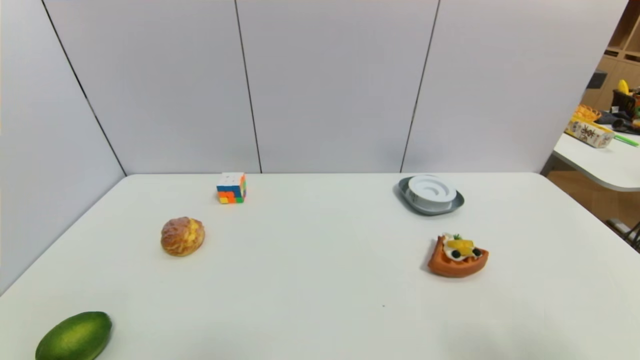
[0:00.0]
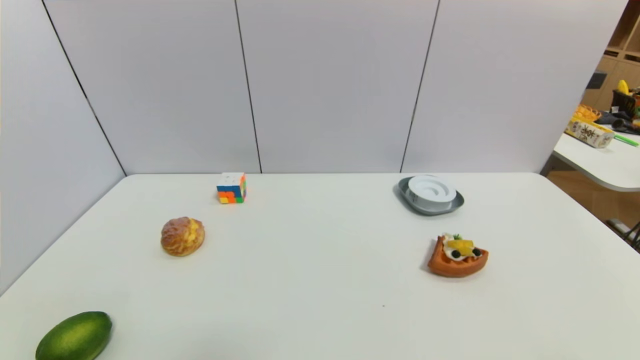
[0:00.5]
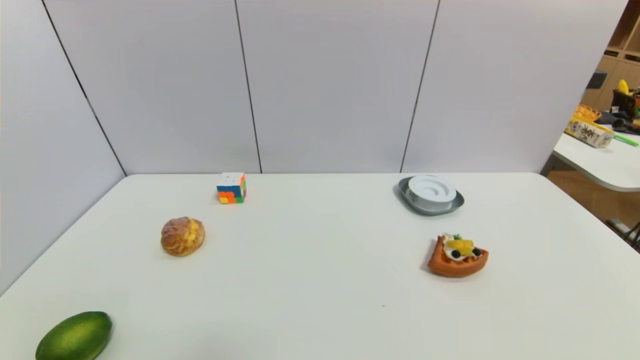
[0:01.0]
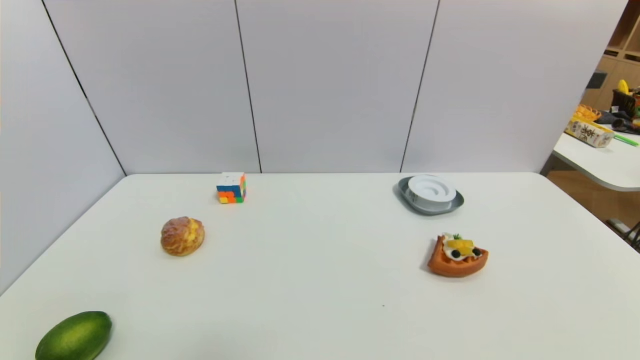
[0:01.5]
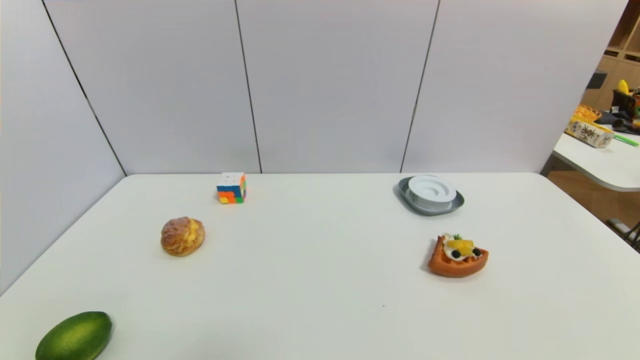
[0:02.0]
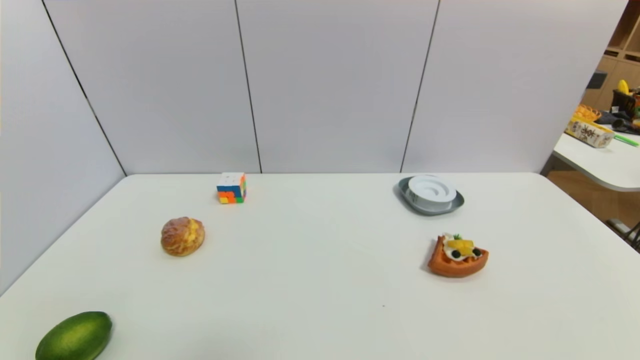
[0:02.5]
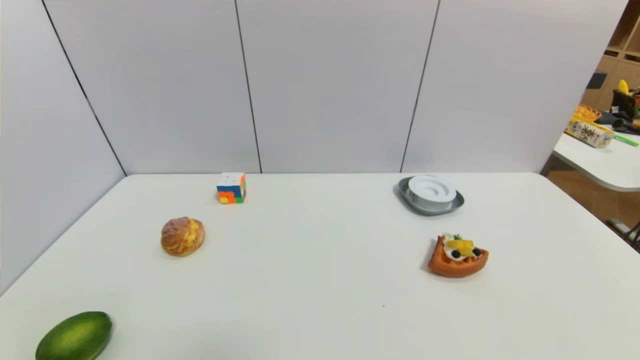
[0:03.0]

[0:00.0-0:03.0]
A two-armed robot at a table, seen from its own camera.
Task of the whole recording: use a gripper to pick the target object and place on the dish.
0:01.5 to 0:03.0: The two grippers keep their place.
